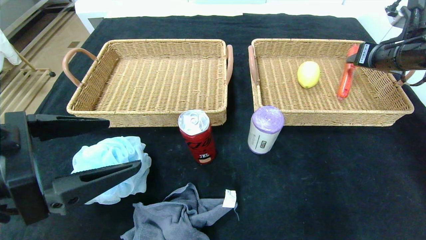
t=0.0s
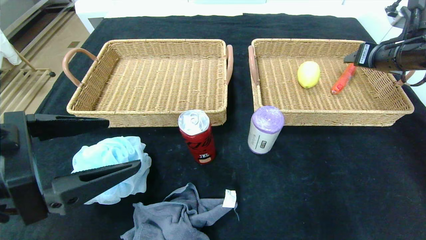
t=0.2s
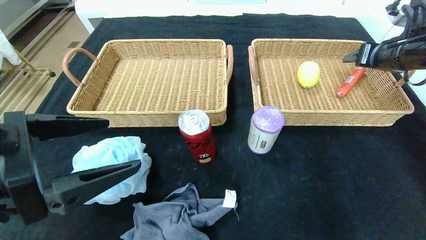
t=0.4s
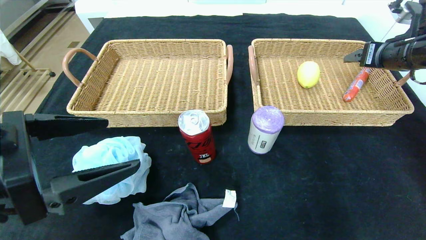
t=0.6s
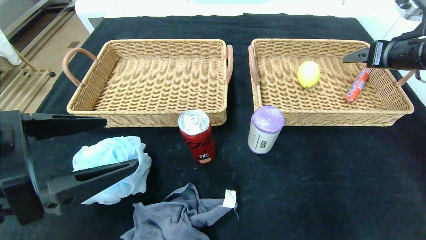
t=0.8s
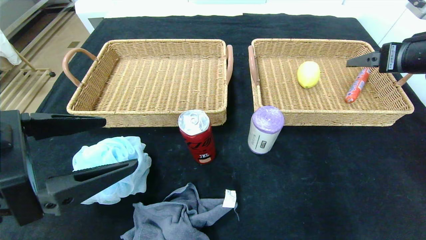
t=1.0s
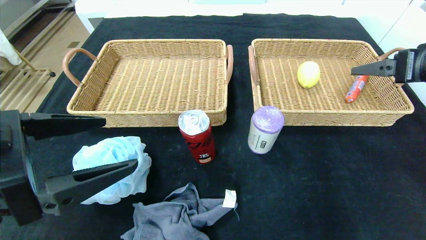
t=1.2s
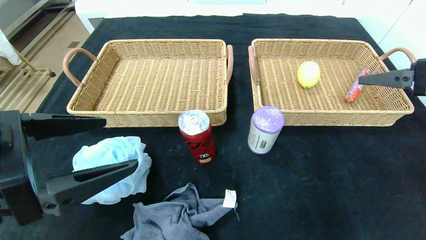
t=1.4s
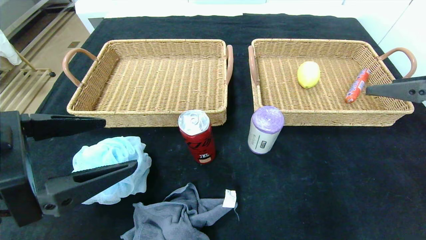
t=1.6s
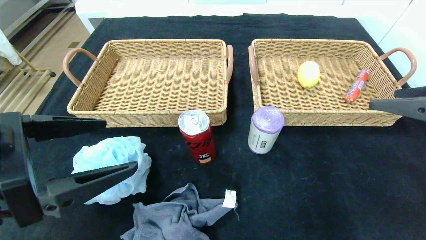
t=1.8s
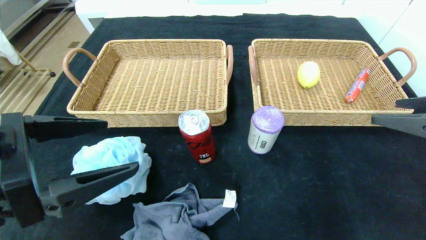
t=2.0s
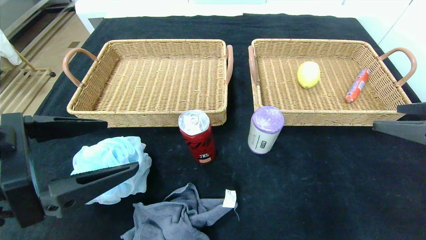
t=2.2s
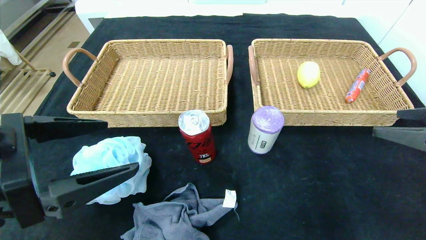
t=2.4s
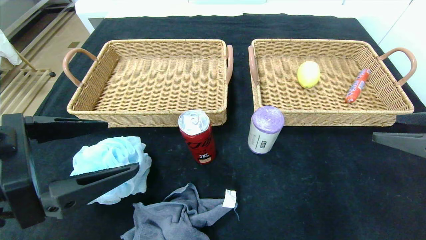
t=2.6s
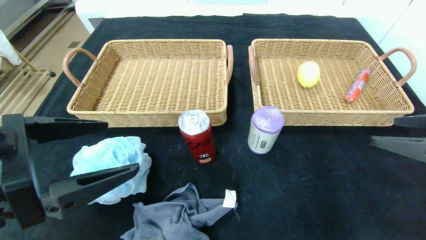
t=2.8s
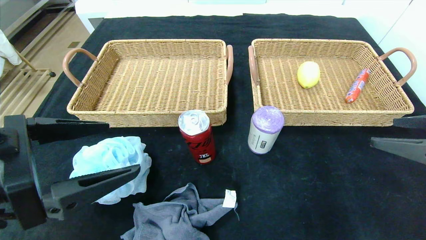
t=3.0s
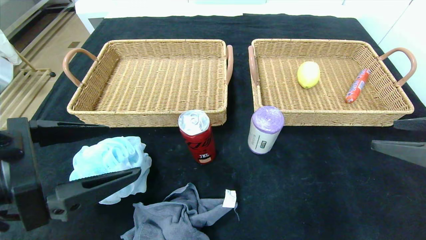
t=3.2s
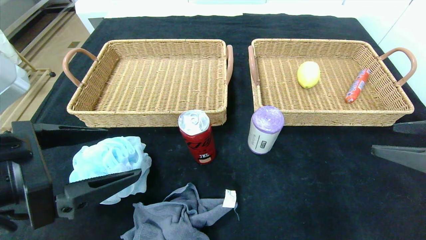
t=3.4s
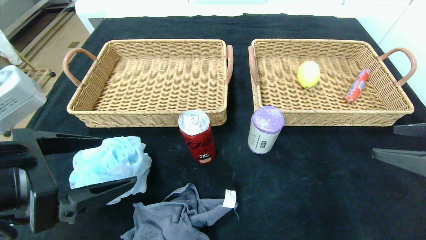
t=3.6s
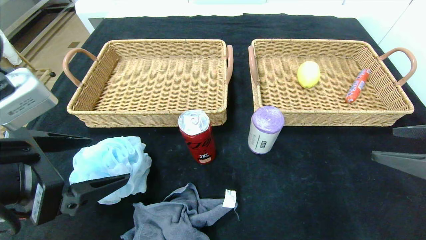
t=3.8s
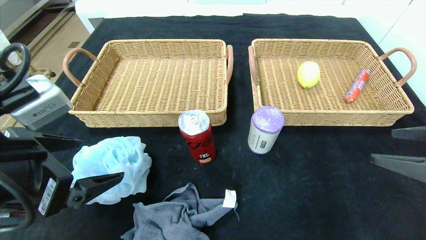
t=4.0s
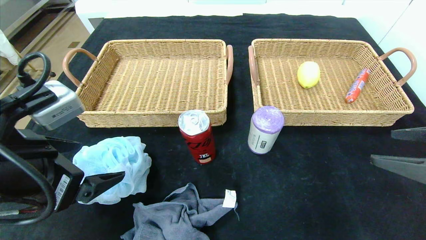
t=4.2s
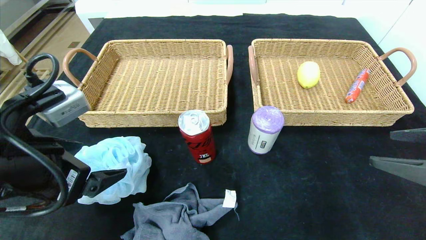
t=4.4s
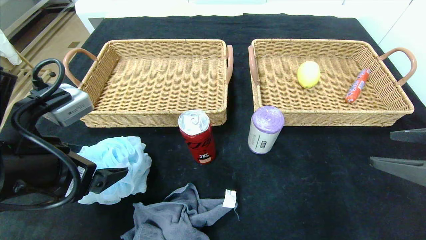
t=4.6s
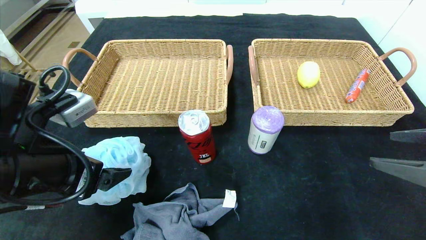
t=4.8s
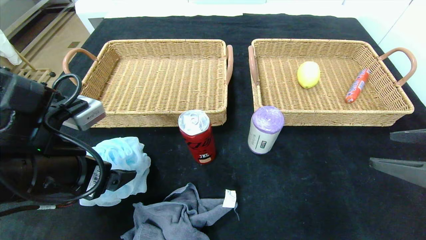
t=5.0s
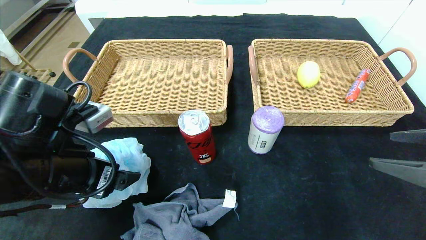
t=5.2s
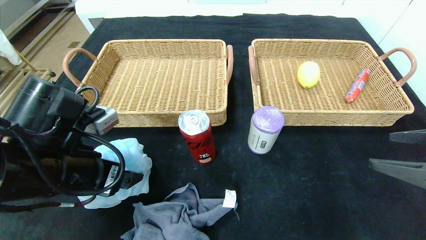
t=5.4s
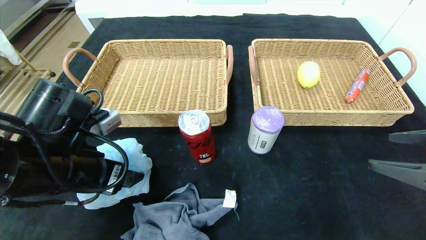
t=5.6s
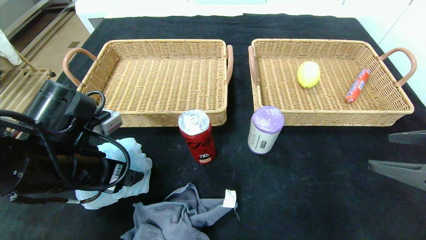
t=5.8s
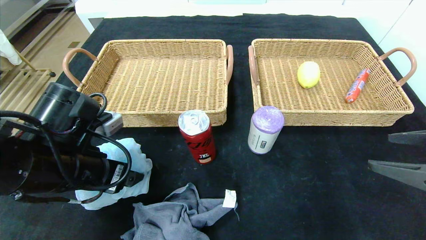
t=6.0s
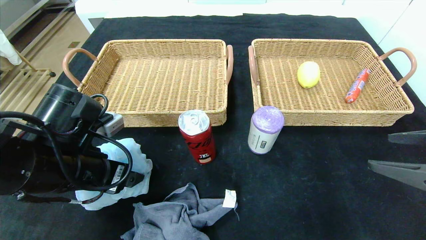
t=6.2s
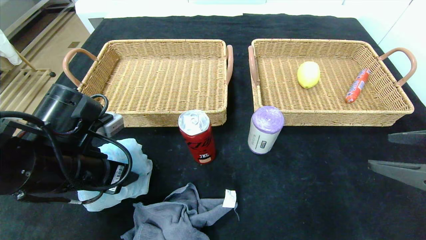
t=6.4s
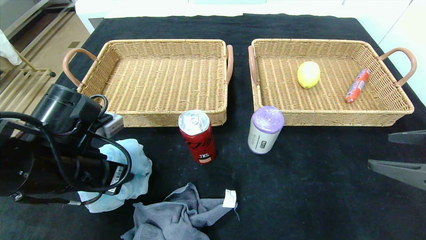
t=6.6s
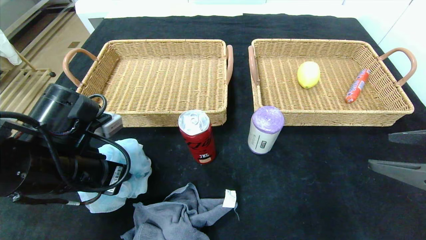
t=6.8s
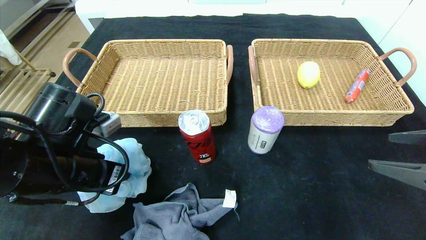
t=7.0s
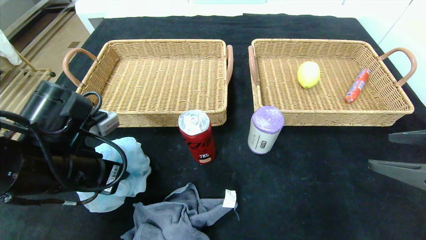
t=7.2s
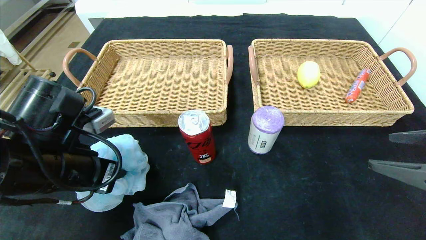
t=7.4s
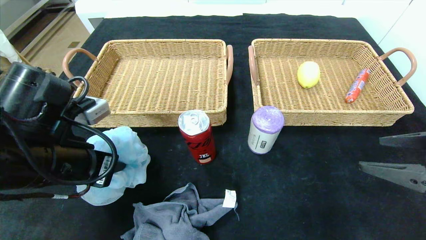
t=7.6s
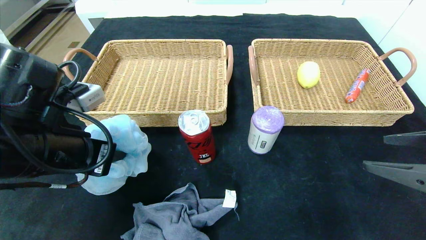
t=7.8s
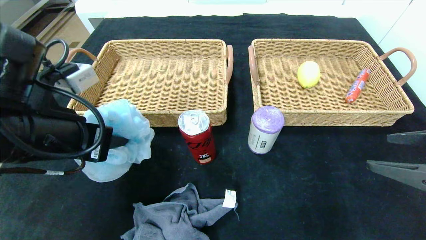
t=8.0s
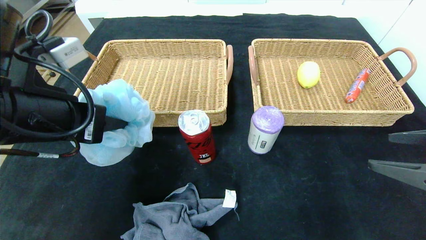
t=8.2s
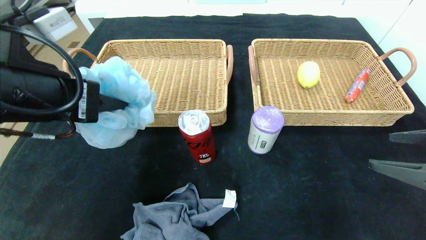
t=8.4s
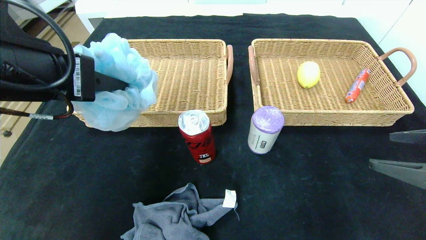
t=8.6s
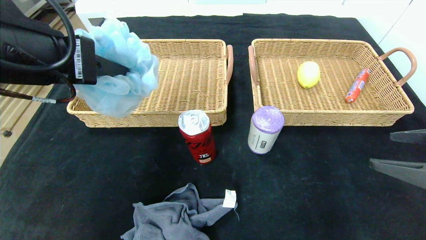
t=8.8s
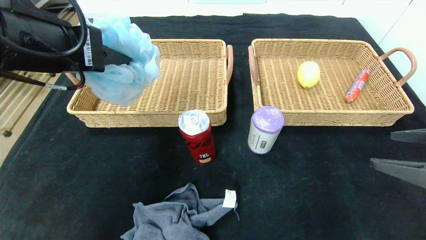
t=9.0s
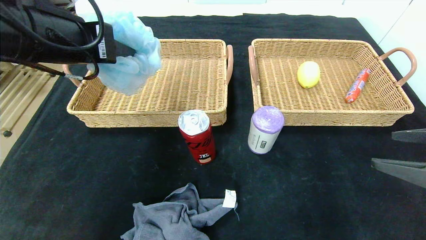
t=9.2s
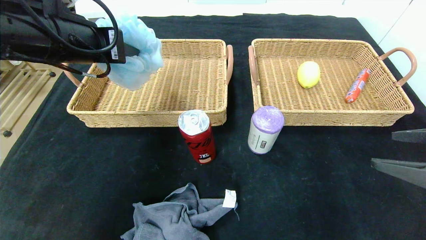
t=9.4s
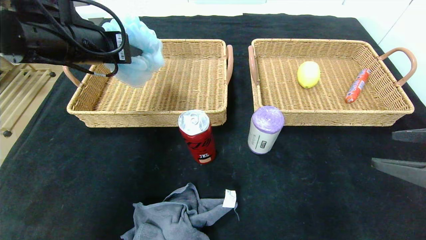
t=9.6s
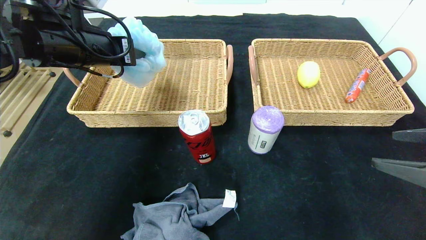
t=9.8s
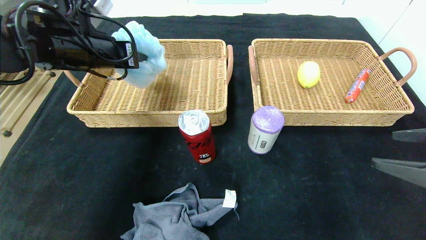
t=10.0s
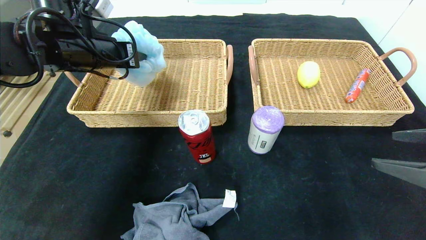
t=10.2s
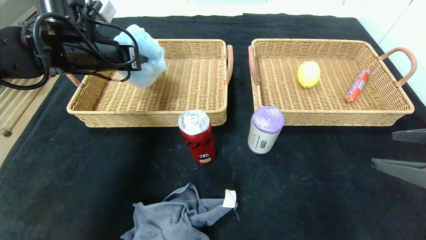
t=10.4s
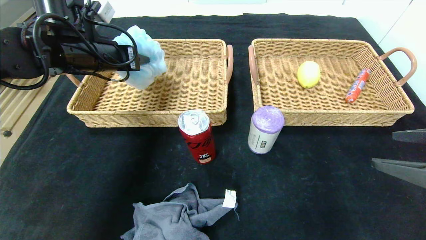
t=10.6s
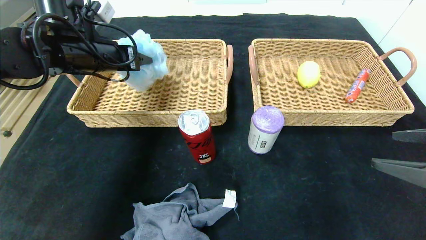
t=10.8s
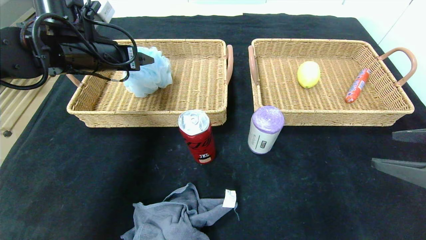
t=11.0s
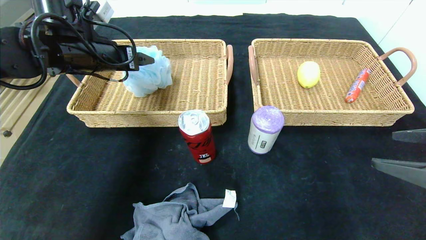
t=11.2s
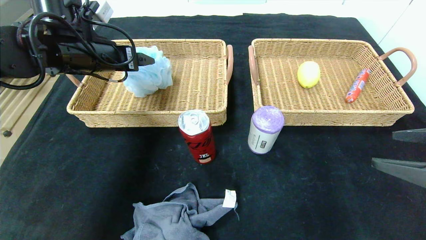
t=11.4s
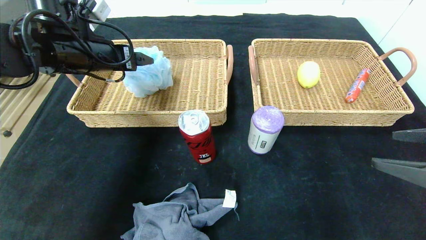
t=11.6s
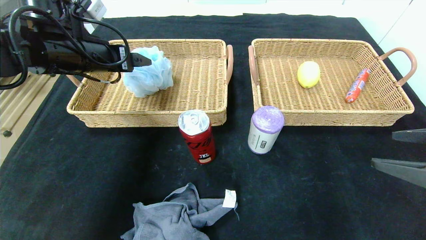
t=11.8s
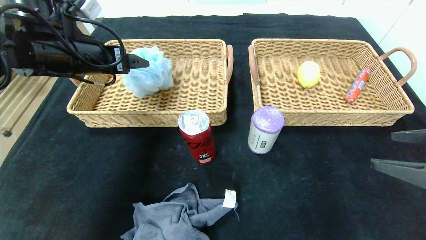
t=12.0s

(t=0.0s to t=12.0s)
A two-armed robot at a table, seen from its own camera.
Step, t=0.4s - t=11.2s: Grasp the bath ball and put it in the left basket.
t=0.0s - t=1.6s: The right gripper is displaced backward by approximately 15 cm, and opens.
t=1.6s - t=3.0s: The right gripper shifts by about 5 cm.
t=4.4s - t=6.0s: The left gripper is displaced forward and downward by some 10 cm.
t=6.0s - t=7.6s: The left gripper closes.
t=7.6s - t=9.0s: The left gripper heads upward, covering approximately 15 cm.
t=9.0s - t=10.4s: The left gripper travels forward by some 15 cm.
t=10.4s - t=12.0s: The left gripper opens.

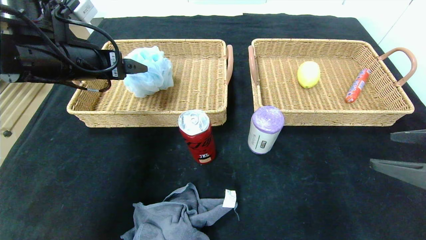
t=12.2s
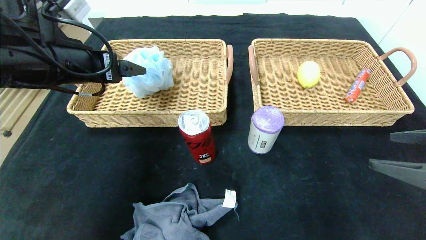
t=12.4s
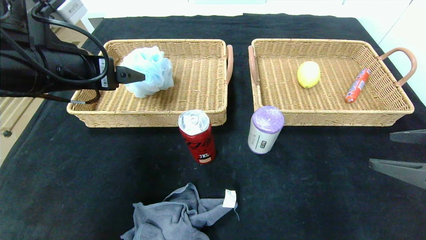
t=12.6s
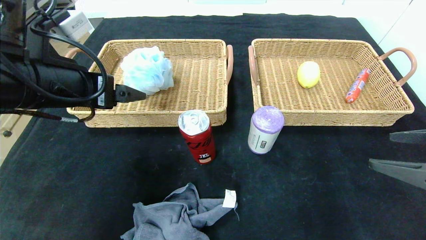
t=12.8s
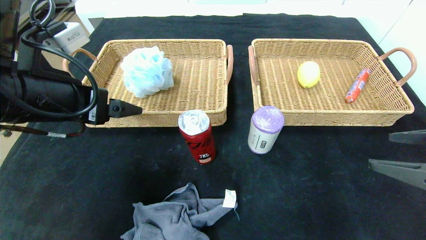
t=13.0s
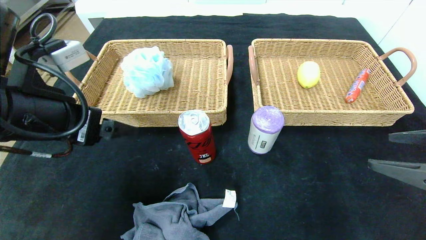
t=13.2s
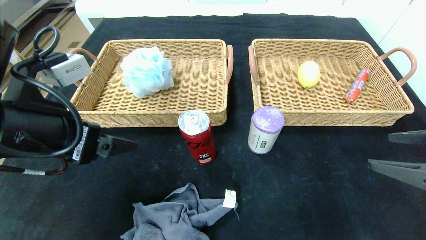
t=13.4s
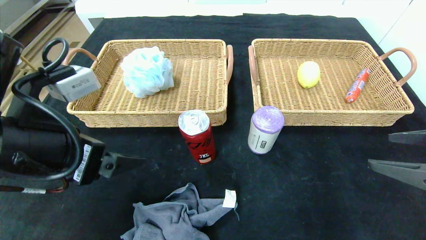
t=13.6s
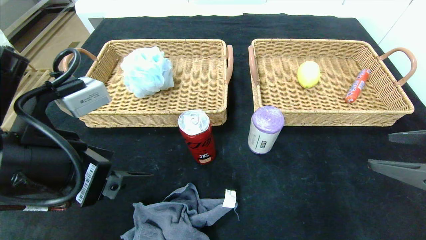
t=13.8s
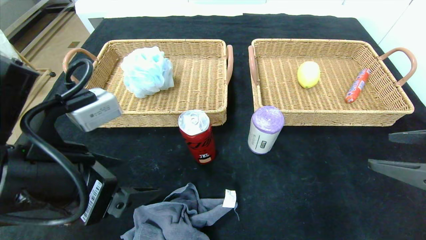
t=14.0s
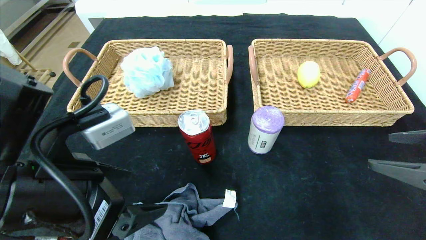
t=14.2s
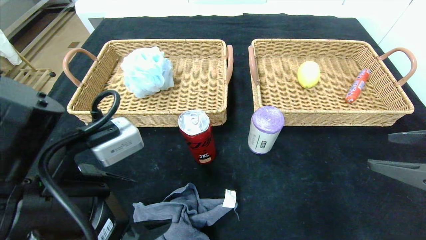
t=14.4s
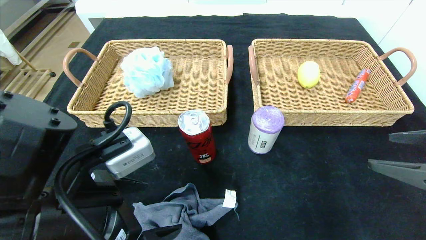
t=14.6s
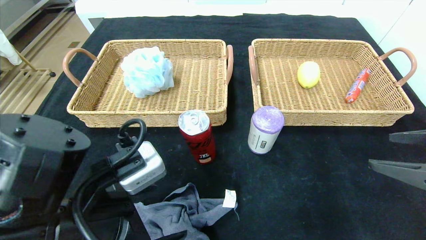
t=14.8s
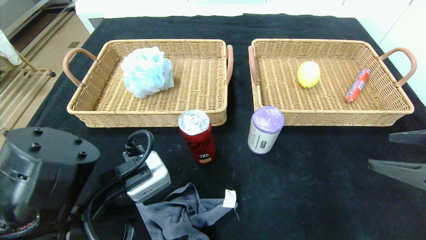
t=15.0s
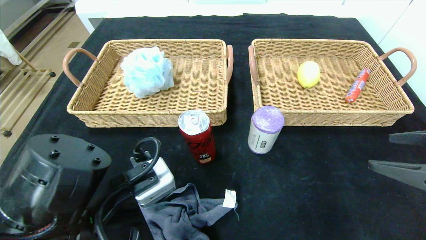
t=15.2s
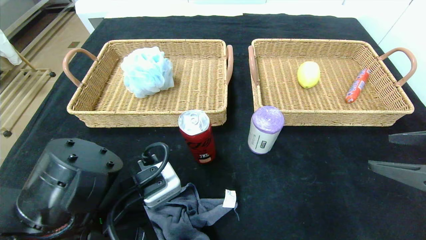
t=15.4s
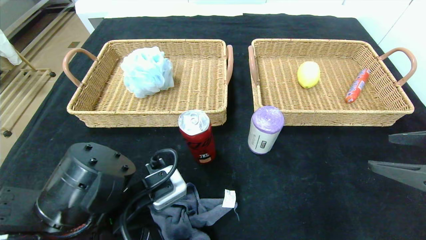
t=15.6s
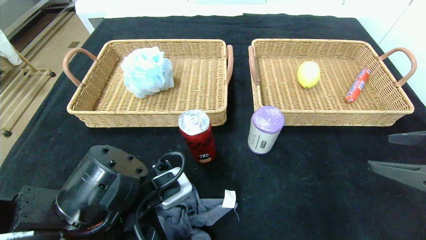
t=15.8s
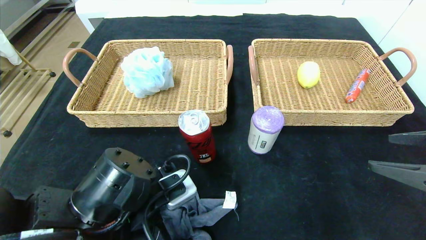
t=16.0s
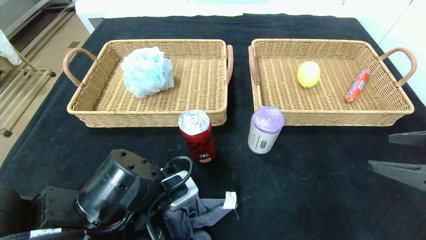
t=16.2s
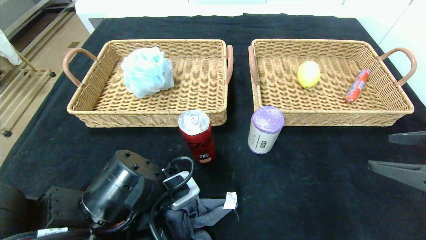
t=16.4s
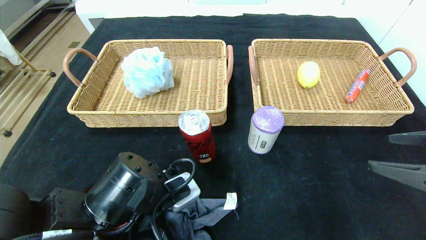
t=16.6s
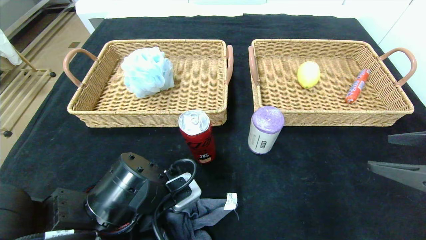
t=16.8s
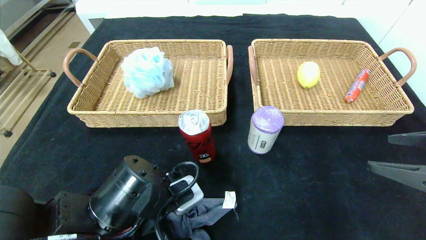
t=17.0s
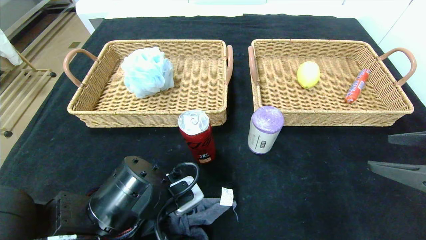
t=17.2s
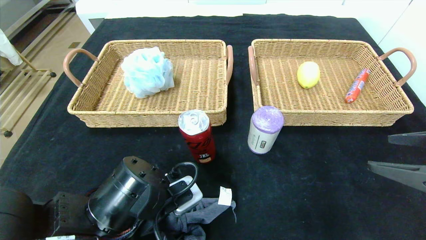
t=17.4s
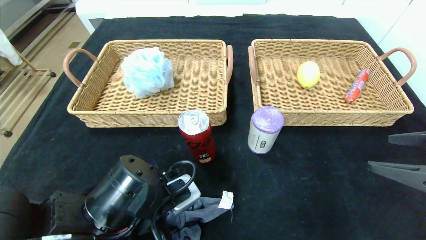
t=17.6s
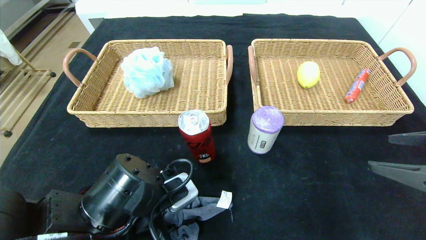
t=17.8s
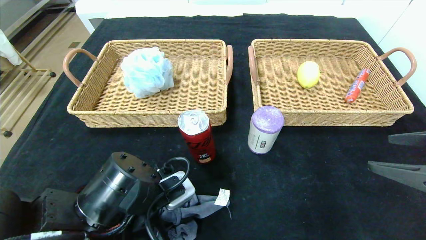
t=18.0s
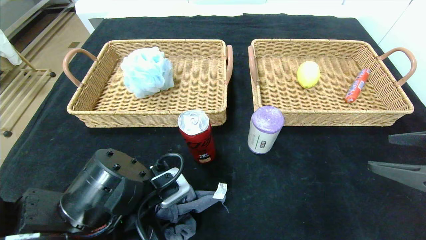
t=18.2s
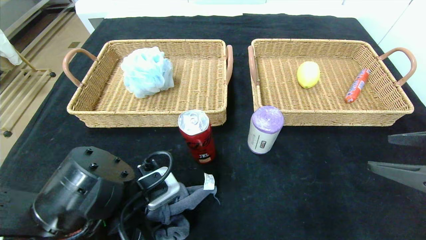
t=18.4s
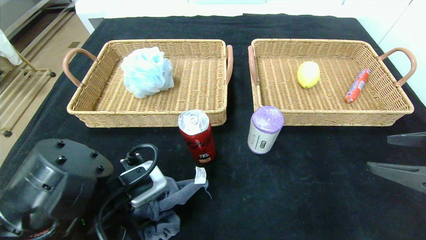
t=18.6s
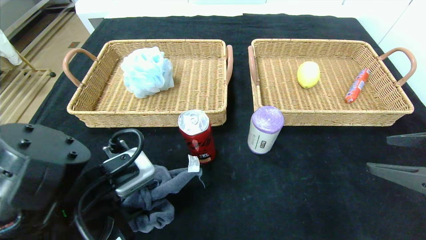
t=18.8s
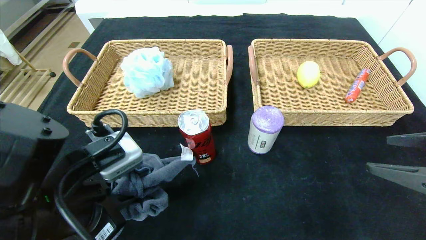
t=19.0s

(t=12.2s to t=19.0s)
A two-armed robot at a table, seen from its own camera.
t=12.2s - t=13.6s: The left gripper moves backward, approximately 15 cm.
t=13.6s - t=15.0s: The left gripper shifts about 10 cm downward and to the right.
t=15.0s - t=16.2s: The left gripper moves approximately 5 cm.
t=16.2s - t=17.6s: The left gripper closes.
t=17.6s - t=19.0s: The left gripper heads upward, covering roughly 5 cm.
